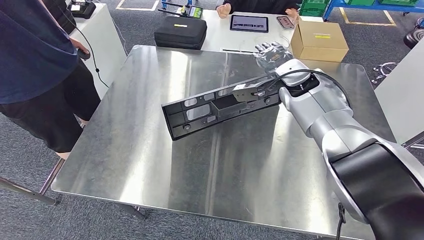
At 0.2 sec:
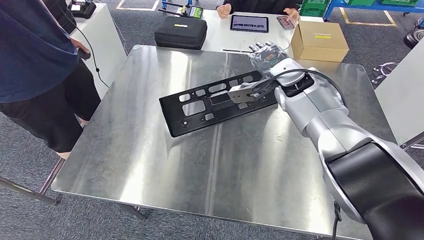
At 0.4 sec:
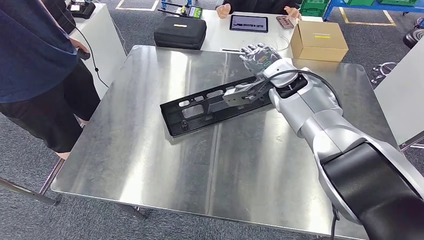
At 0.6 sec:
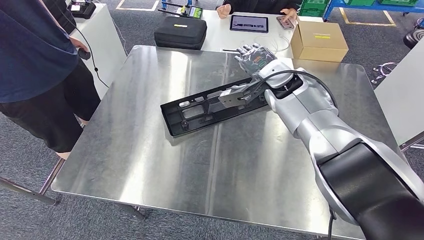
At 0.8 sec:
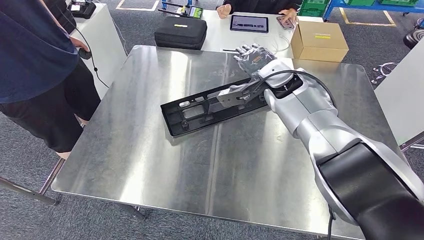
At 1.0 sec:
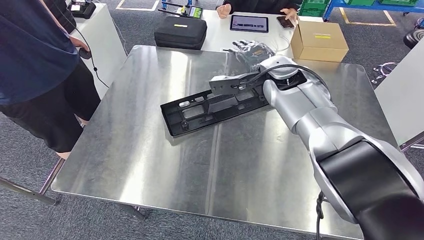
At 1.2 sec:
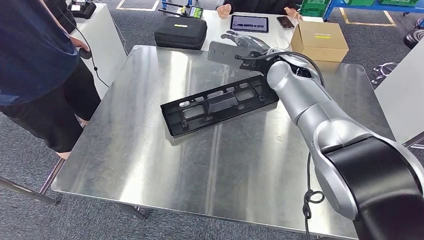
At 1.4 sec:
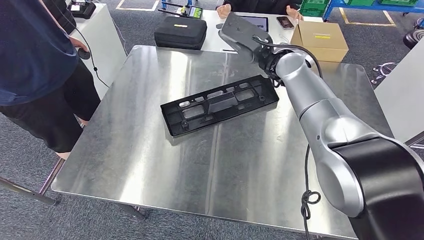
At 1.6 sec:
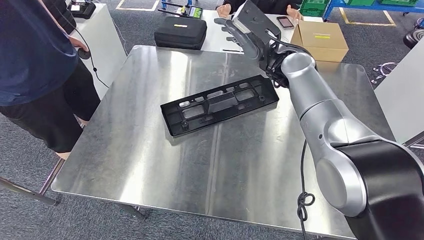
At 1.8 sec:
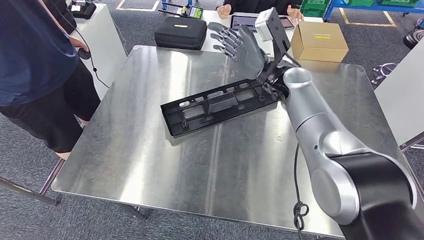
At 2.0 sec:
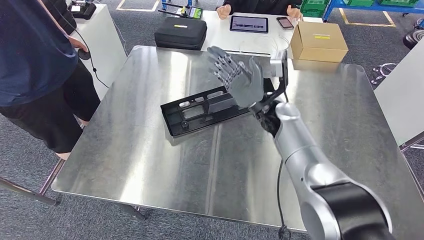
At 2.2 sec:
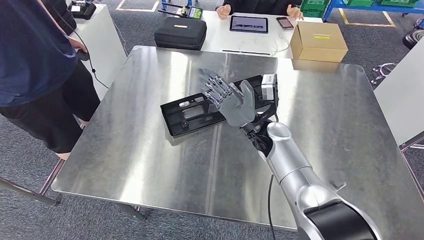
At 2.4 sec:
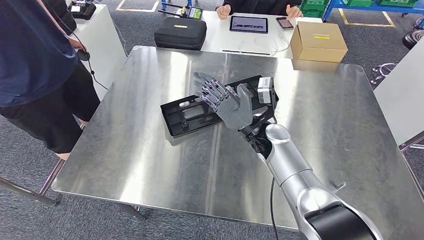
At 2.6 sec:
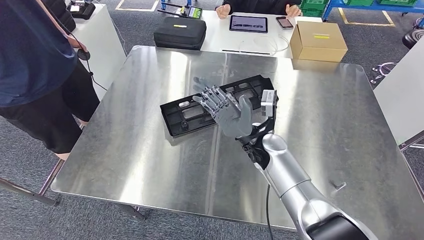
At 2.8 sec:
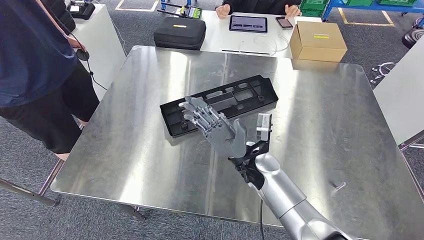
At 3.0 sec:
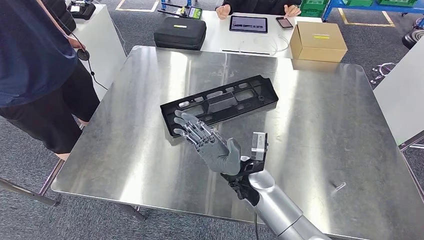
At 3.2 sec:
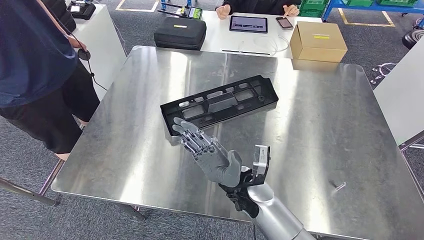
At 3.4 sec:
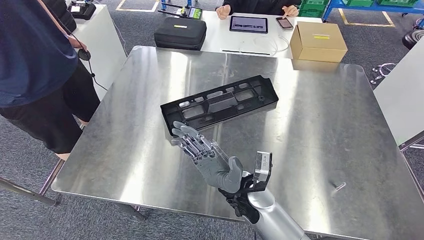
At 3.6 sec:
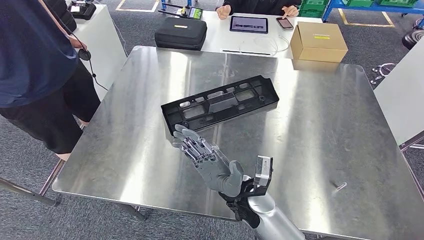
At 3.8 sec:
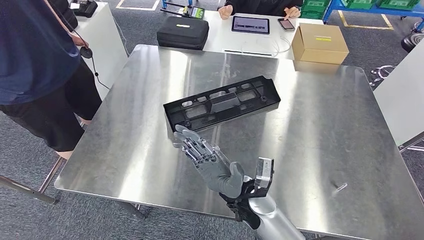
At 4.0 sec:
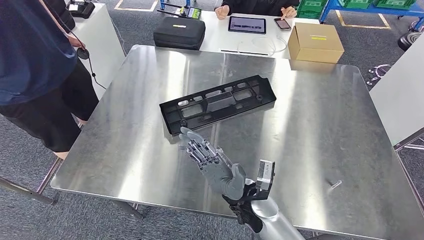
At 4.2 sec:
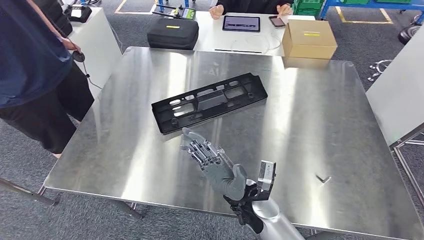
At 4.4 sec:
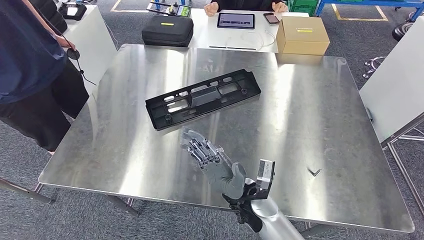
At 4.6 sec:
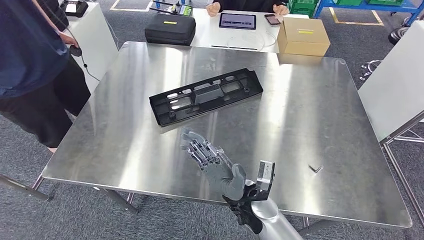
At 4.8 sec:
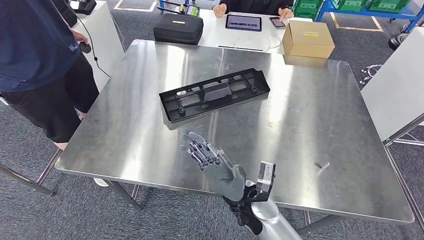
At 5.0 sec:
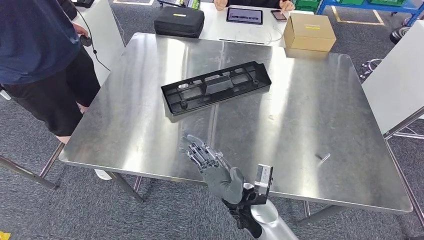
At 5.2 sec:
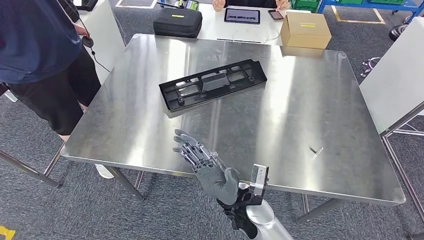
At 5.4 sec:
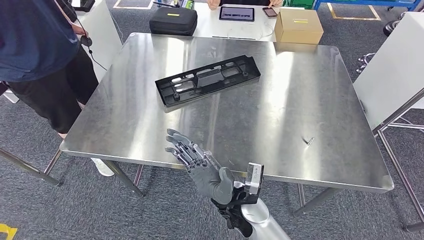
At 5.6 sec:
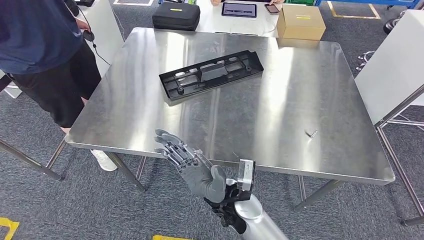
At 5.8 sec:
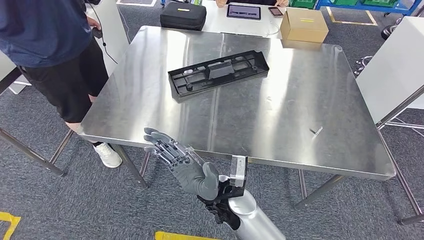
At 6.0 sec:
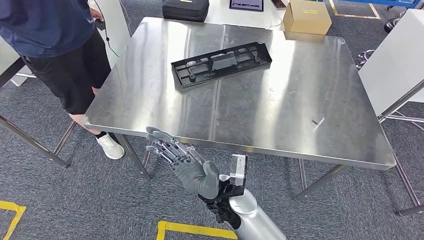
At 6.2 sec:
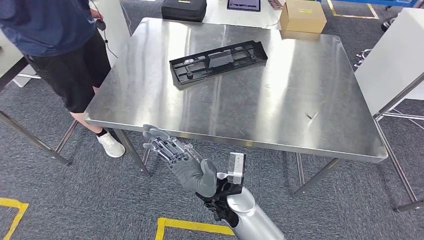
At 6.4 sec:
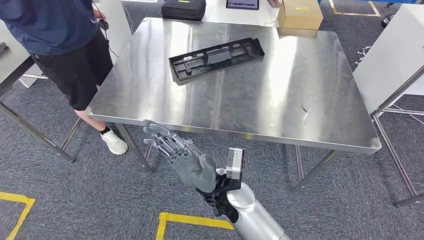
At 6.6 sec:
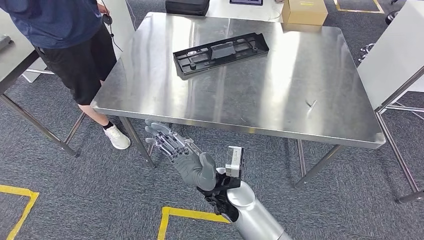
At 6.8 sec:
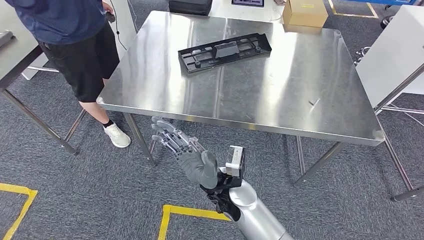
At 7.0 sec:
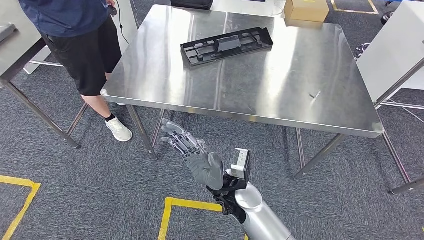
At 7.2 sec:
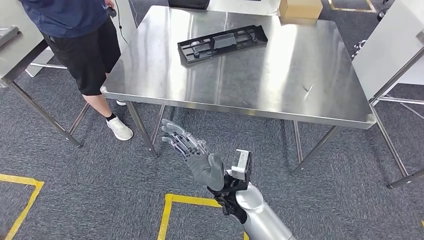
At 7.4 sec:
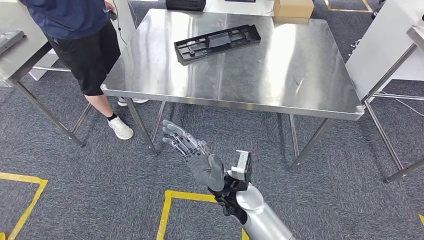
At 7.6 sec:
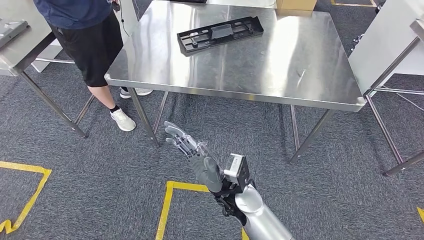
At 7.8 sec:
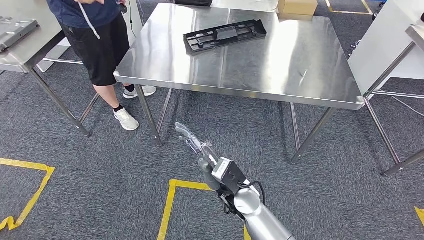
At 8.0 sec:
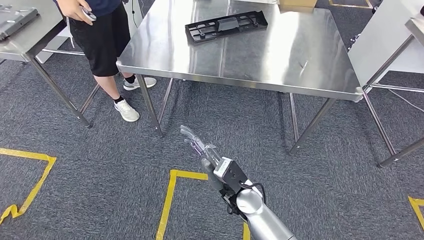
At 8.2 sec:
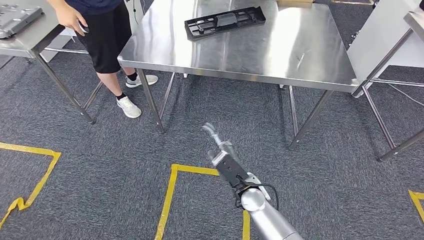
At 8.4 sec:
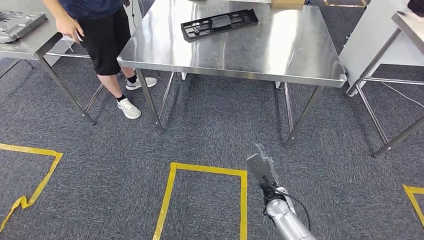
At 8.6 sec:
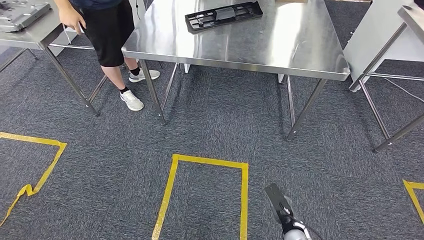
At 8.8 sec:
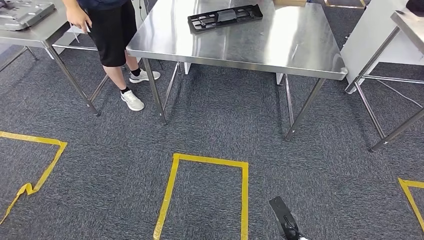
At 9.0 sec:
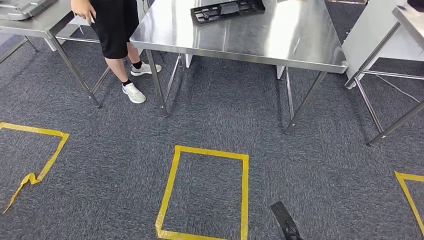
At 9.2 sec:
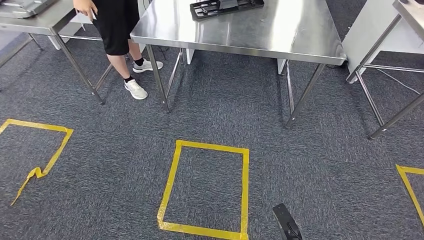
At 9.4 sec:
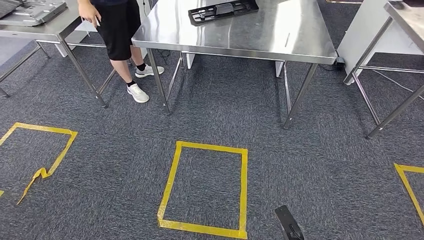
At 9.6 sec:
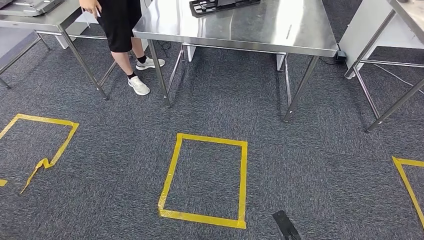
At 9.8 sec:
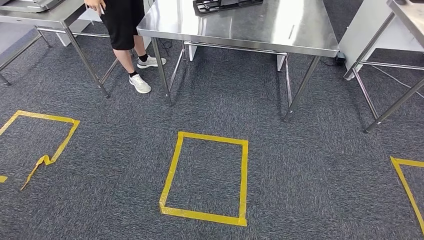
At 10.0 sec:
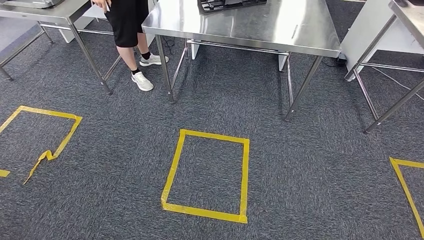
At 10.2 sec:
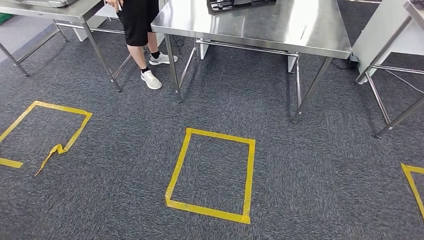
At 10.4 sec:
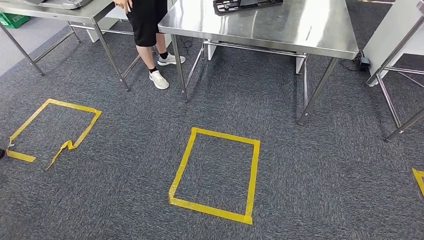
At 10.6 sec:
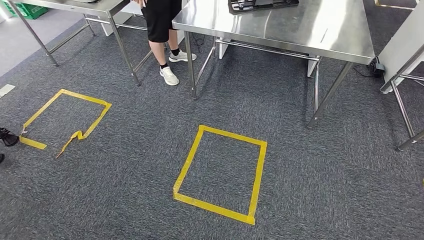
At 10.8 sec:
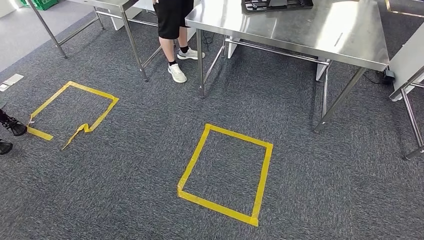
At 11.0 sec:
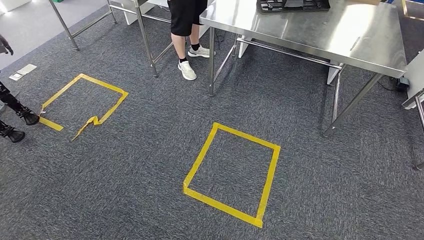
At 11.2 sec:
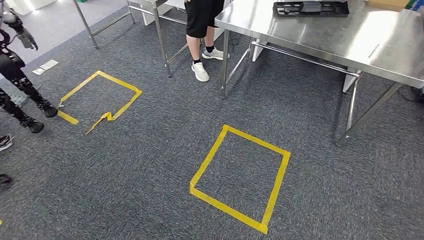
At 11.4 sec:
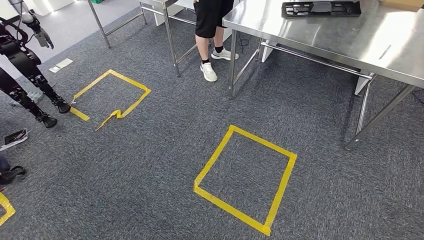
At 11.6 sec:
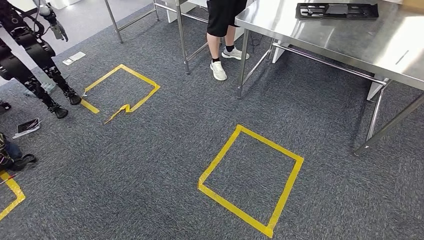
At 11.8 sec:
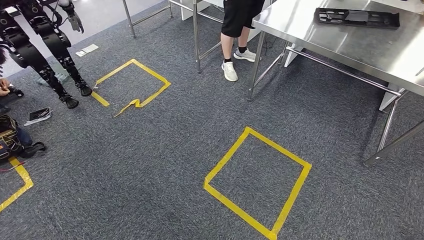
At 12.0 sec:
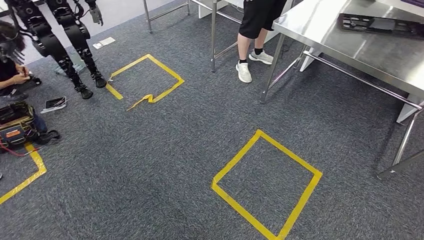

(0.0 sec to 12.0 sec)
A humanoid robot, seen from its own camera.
Step, 0.0 sec - 8.8 sec: Insert the large material into the corresponding hole on the workbench.

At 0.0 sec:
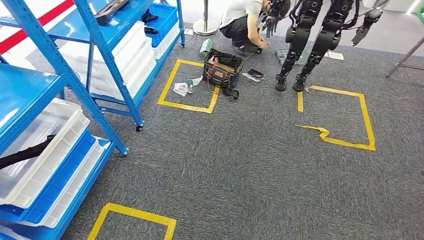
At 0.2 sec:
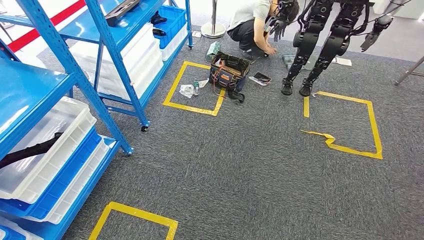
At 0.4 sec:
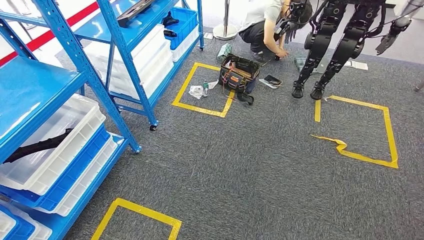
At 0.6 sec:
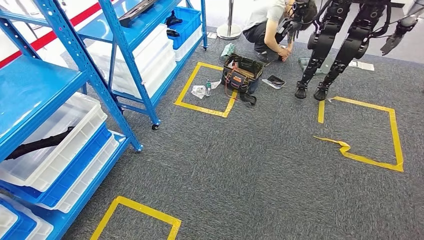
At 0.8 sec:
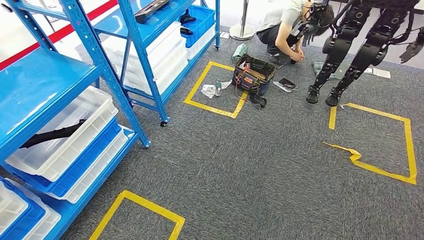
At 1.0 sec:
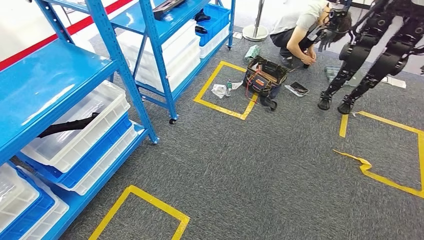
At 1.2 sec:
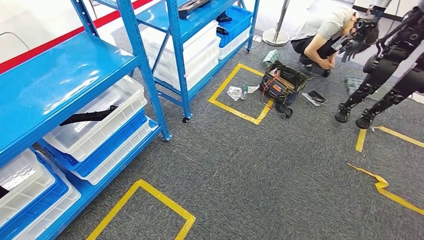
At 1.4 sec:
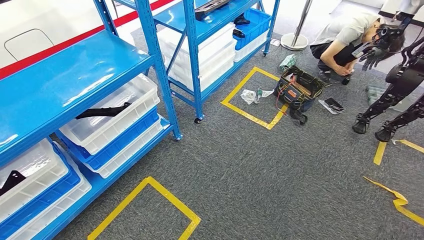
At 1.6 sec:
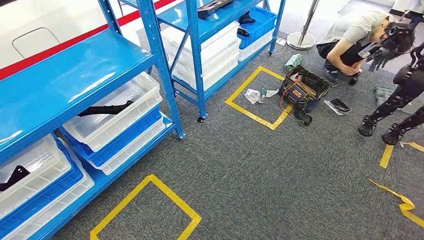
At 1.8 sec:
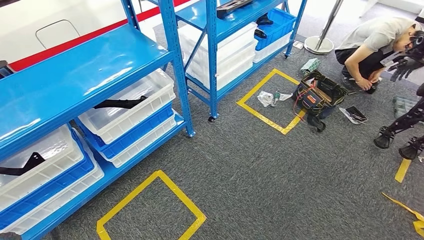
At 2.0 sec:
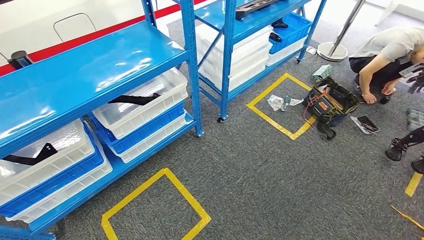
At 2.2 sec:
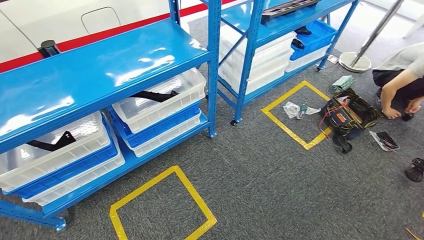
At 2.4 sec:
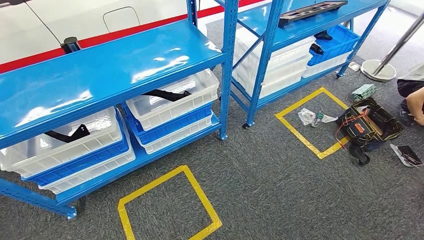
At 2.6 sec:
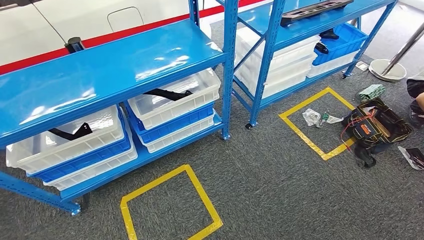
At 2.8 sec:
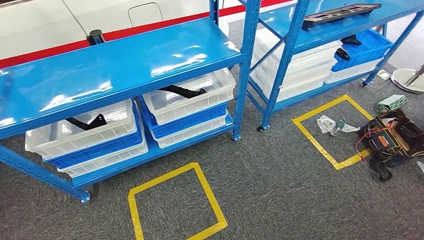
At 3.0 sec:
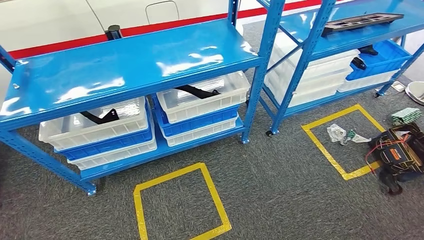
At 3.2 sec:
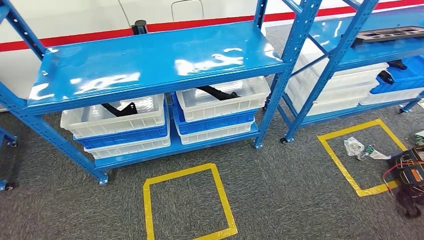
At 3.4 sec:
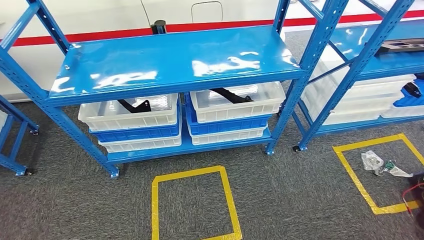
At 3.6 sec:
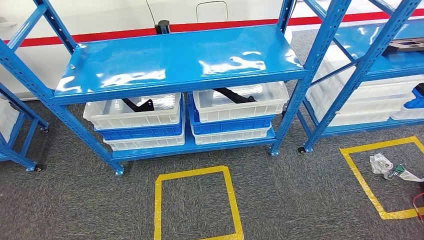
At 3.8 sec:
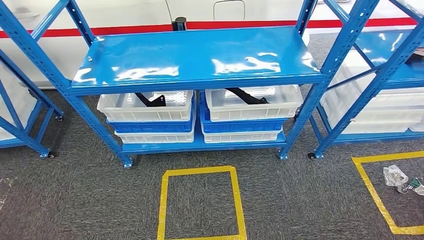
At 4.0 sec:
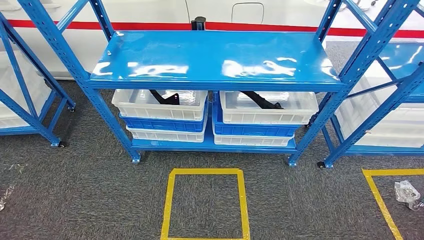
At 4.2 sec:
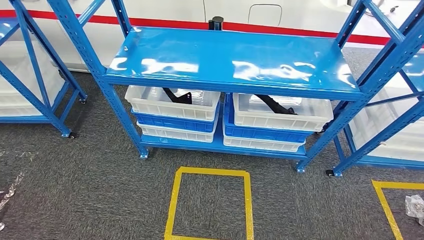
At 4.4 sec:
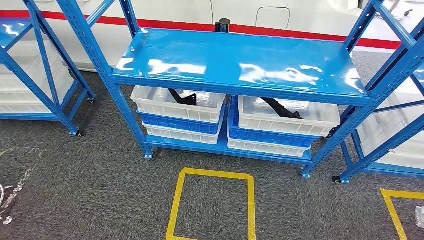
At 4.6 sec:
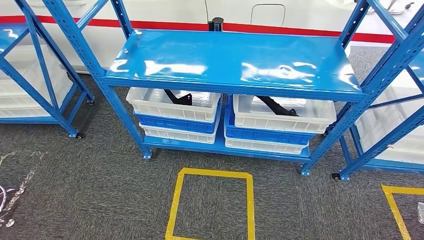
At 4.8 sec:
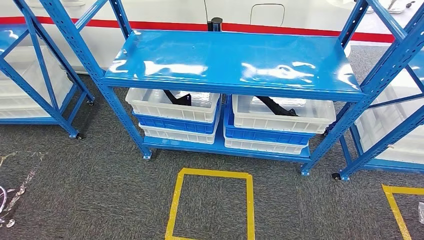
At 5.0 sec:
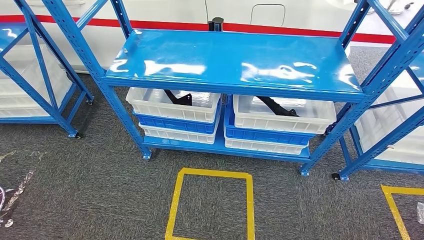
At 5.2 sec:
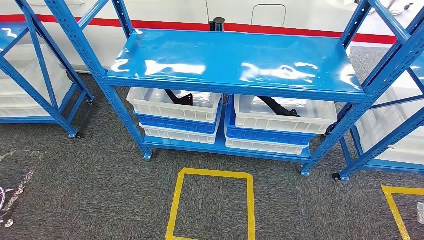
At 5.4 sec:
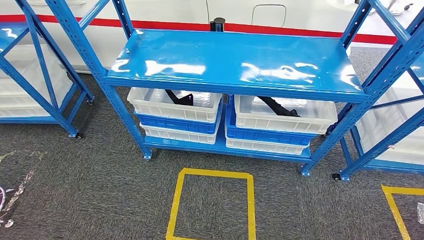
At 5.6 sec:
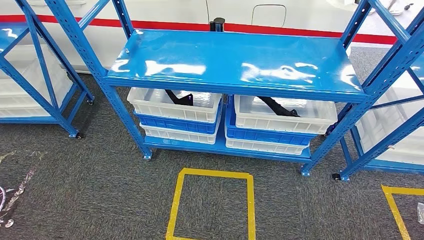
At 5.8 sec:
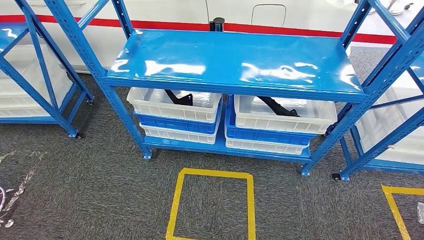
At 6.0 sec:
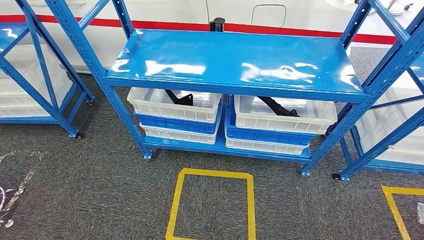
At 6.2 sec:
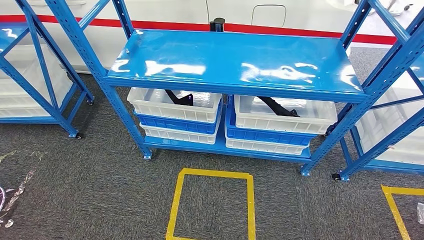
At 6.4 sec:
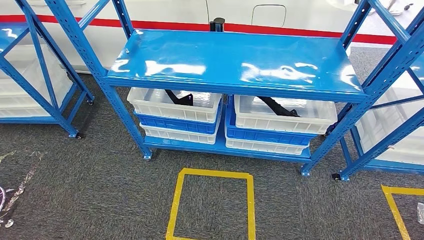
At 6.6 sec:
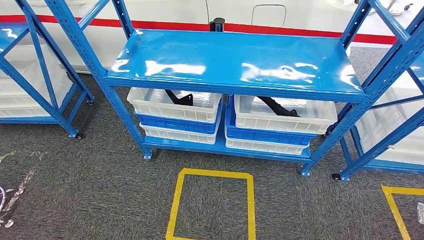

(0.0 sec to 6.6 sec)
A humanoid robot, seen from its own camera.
Step, 0.0 sec - 6.6 sec: Move to the initial position of the shelf.
5.0 sec - 6.6 sec: The left hand shifts some 5 cm to the left.
